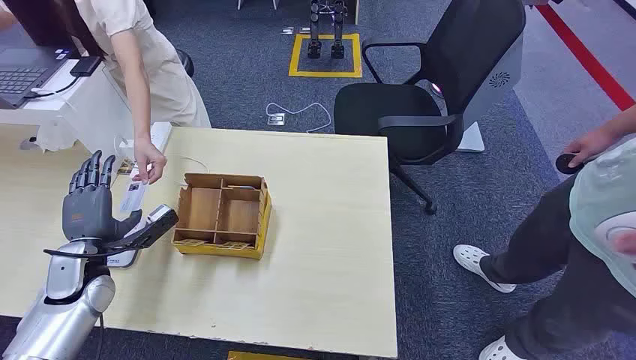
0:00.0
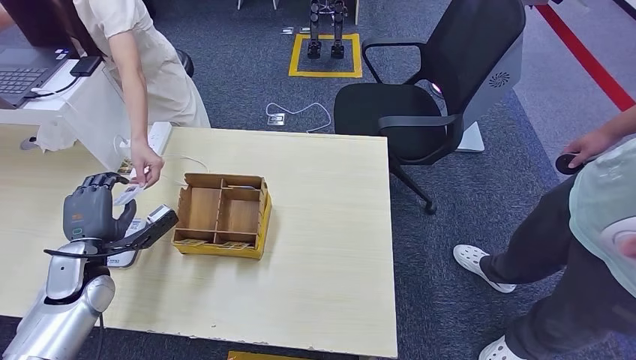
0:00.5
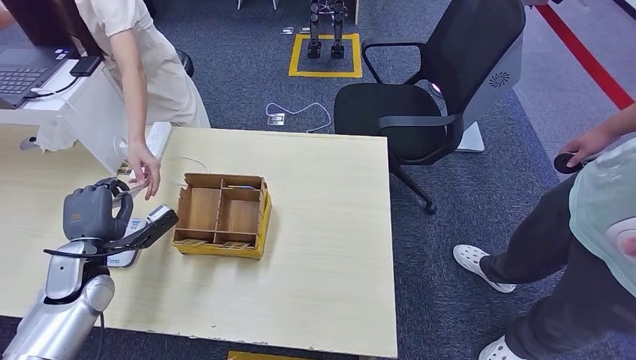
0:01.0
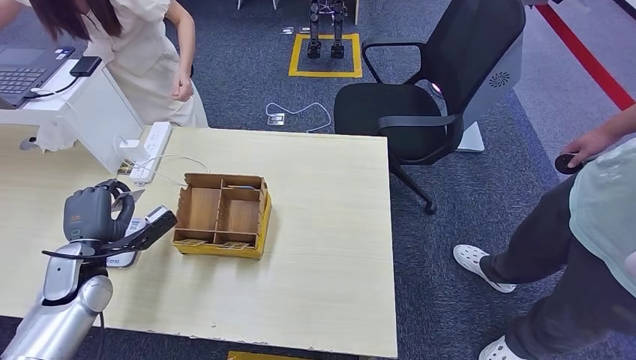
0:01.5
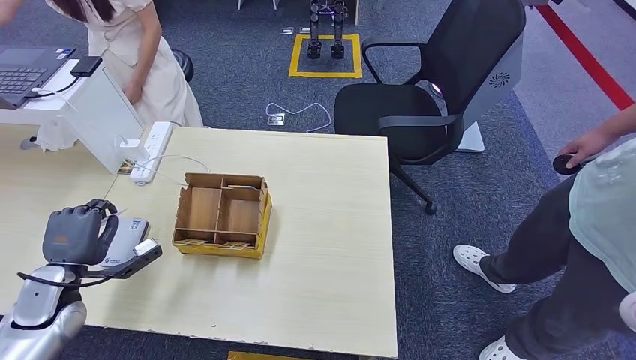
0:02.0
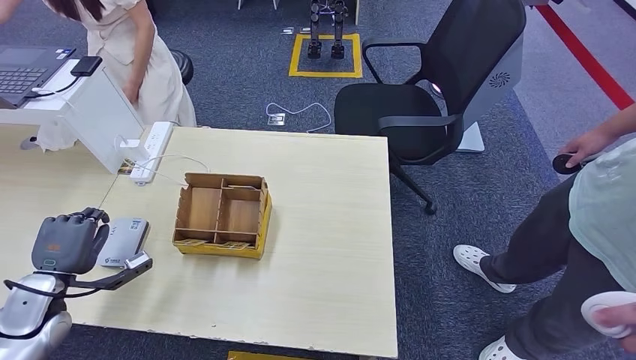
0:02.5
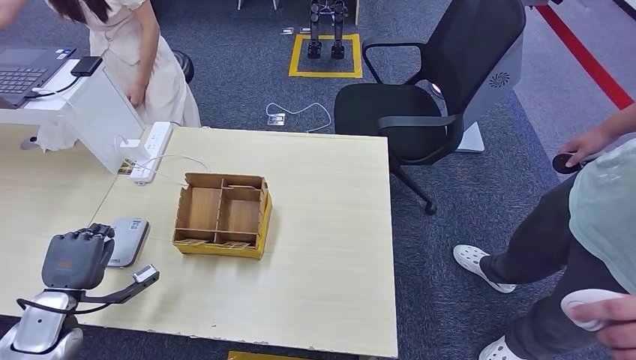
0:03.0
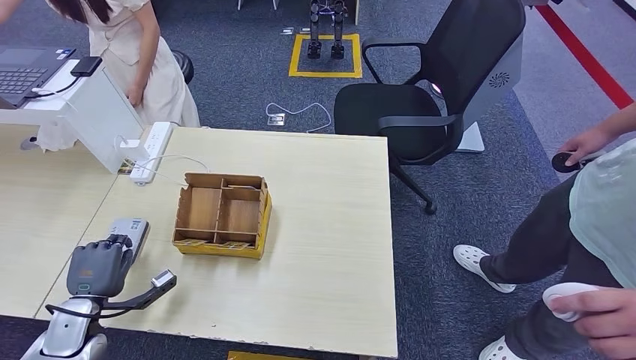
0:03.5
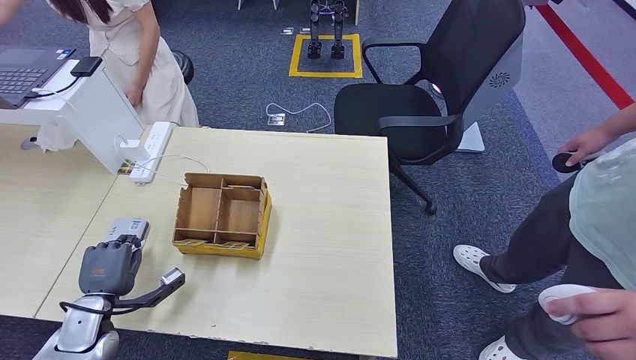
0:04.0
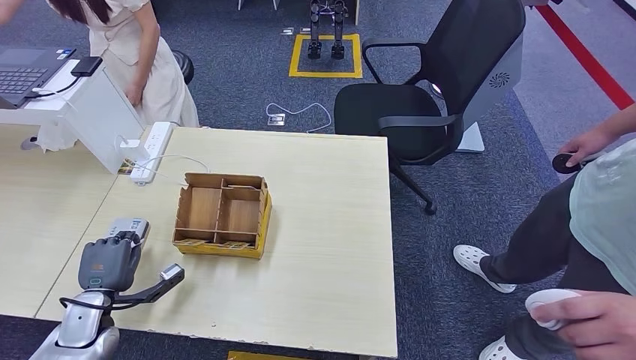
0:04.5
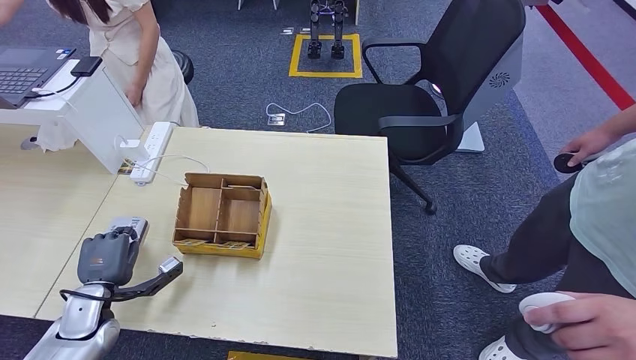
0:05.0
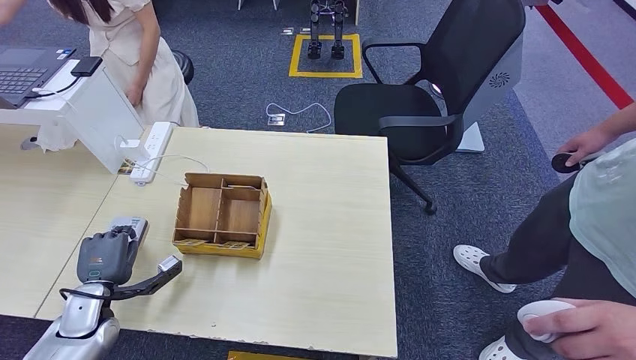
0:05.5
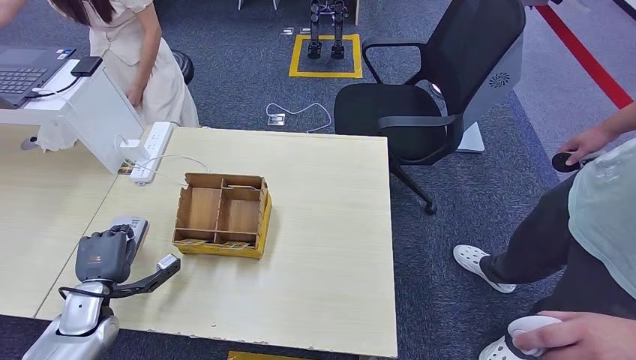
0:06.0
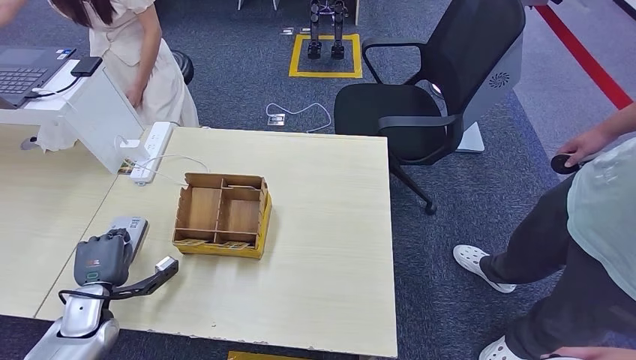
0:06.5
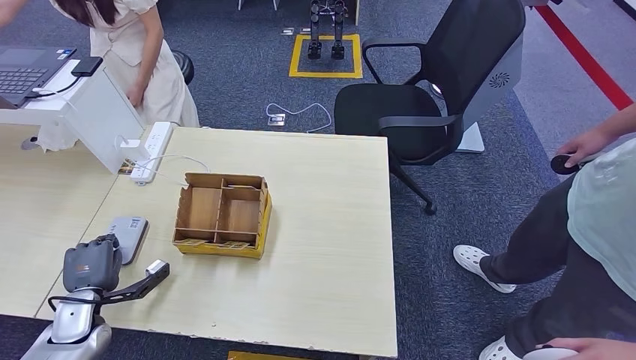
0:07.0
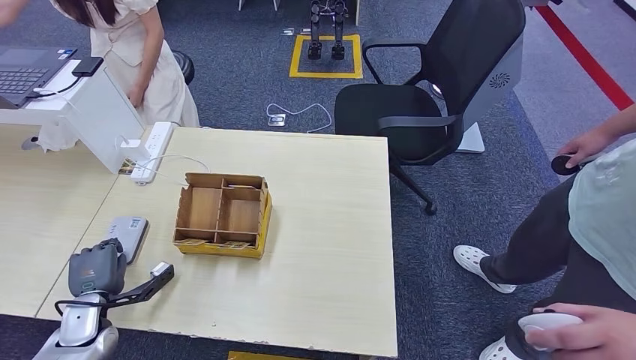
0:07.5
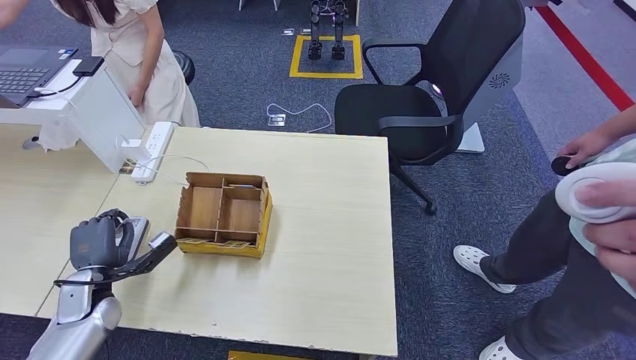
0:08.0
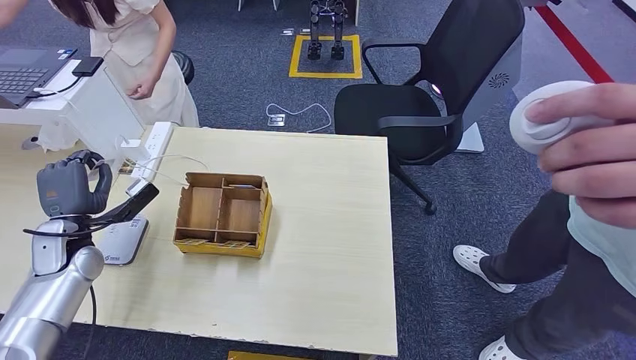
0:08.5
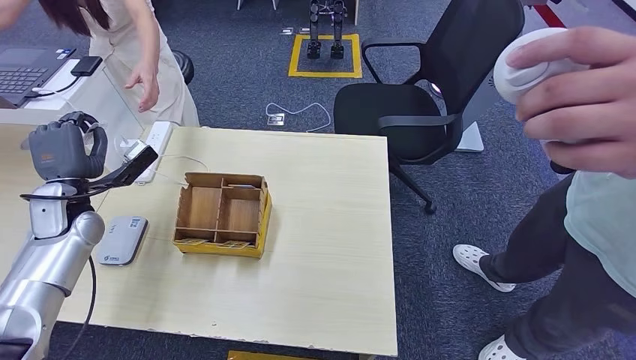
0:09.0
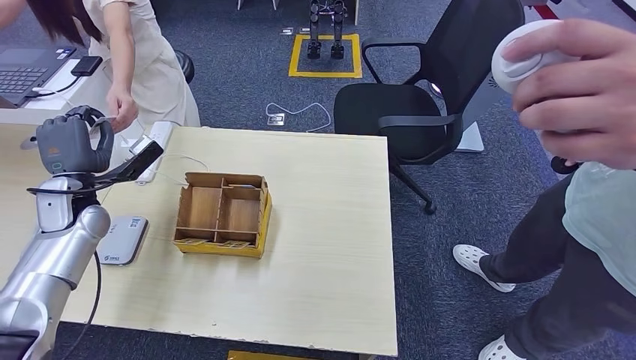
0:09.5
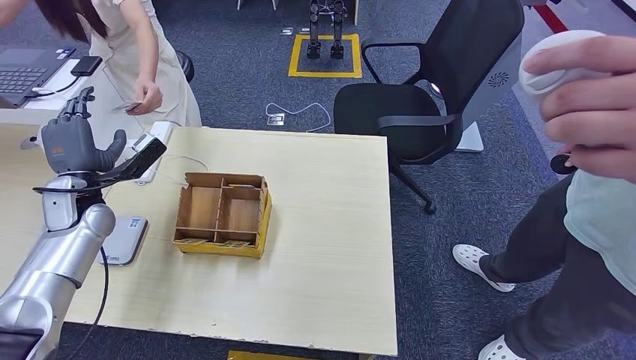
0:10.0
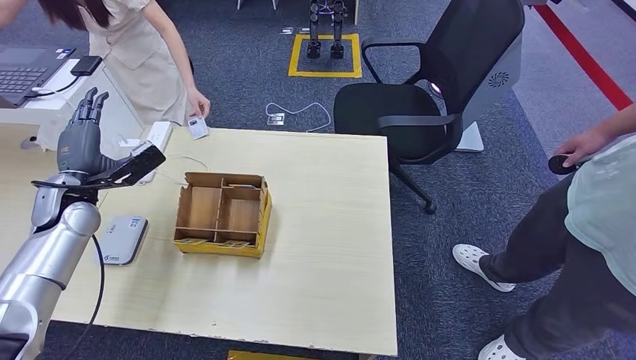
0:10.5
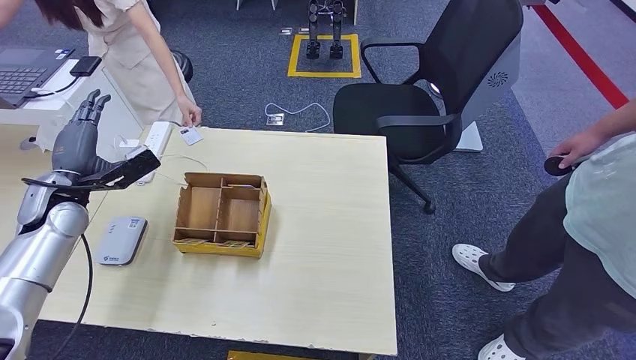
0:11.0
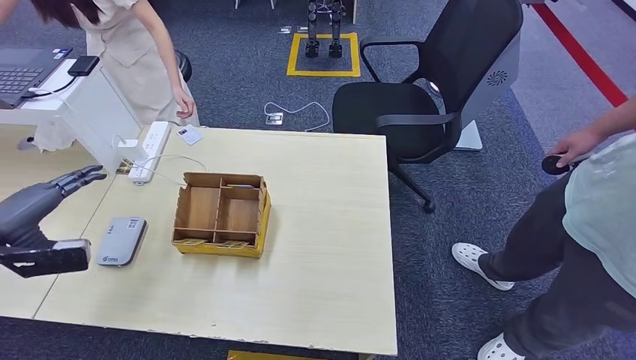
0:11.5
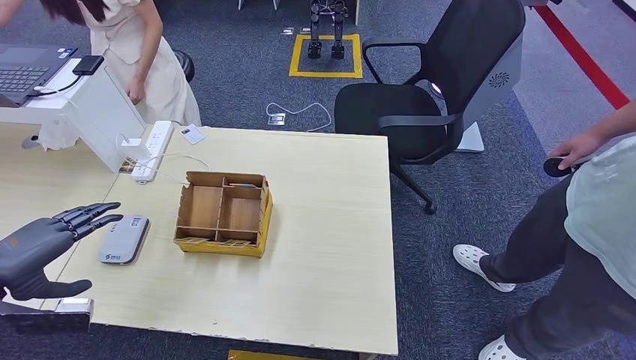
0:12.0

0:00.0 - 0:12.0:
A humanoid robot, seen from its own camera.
Step, 0:00.0 - 0:01.0: Take the ID card from the person's hand.
Step, 0:01.5 - 0:04.0: Place the ID card on the card reader.
Step, 0:04.5 - 0:10.0: Hand the ID card to the person.
0:02.0 - 0:04.0: The left hand goes approximately 10 cm downward.
0:04.0 - 0:08.0: The hands move only a little.
0:08.0 - 0:10.0: The left hand is displaced upward and forward by about 20 cm.
0:10.0 - 0:12.0: The left hand is displaced backward by approximately 20 cm.

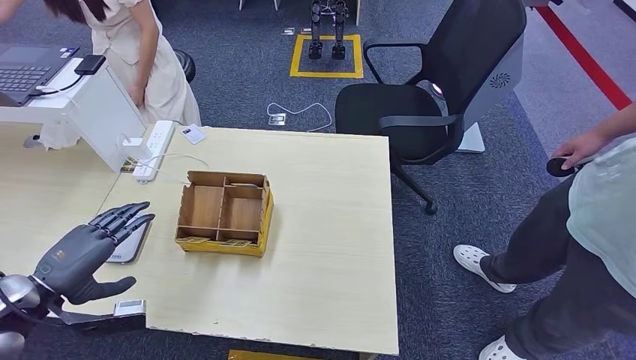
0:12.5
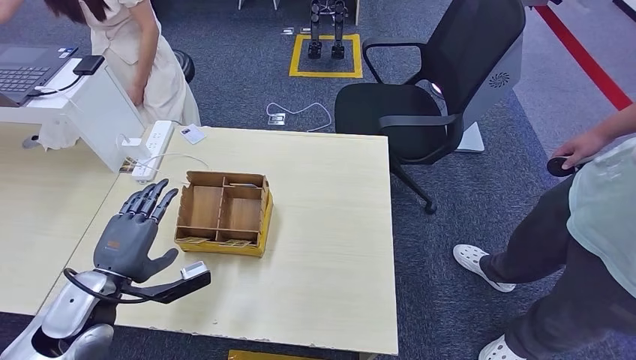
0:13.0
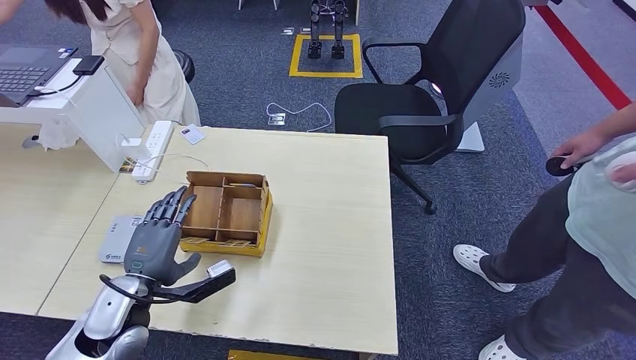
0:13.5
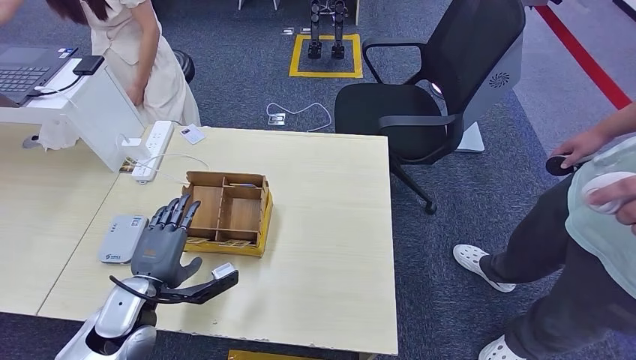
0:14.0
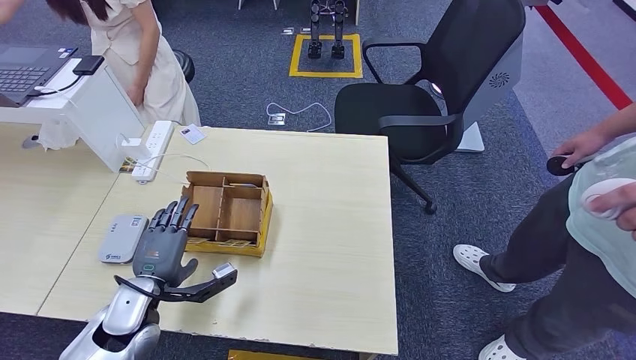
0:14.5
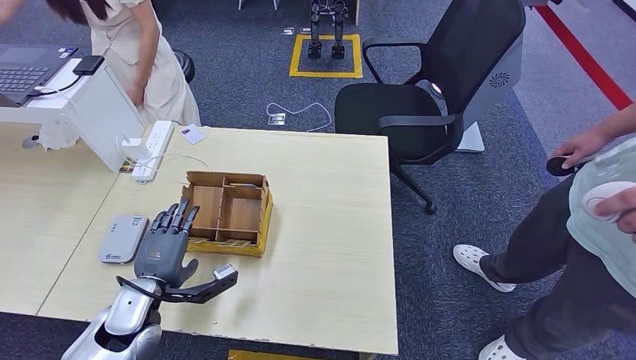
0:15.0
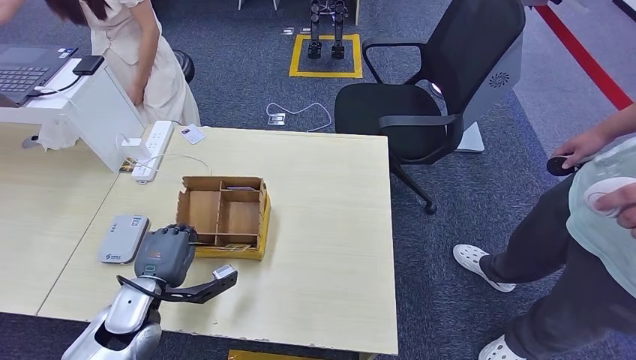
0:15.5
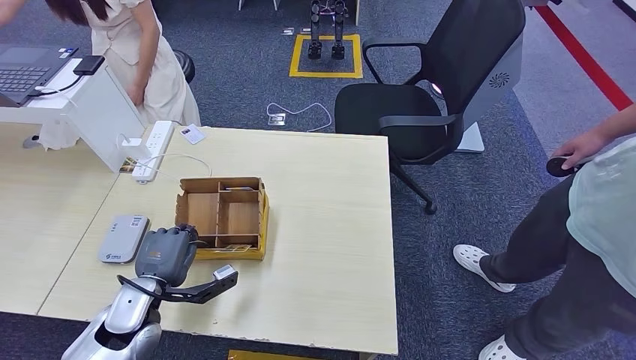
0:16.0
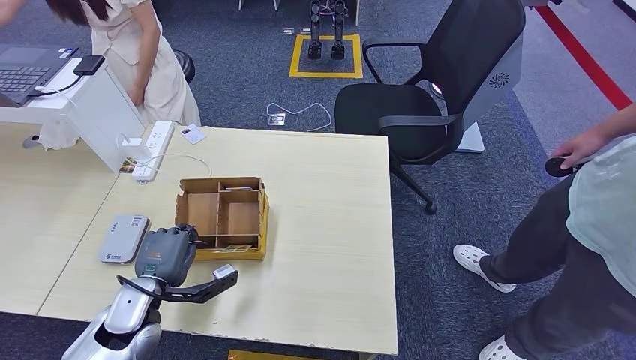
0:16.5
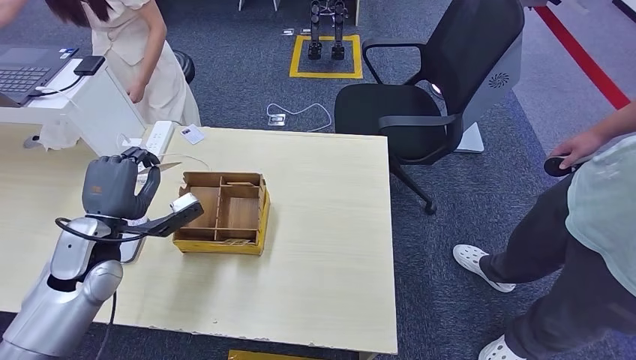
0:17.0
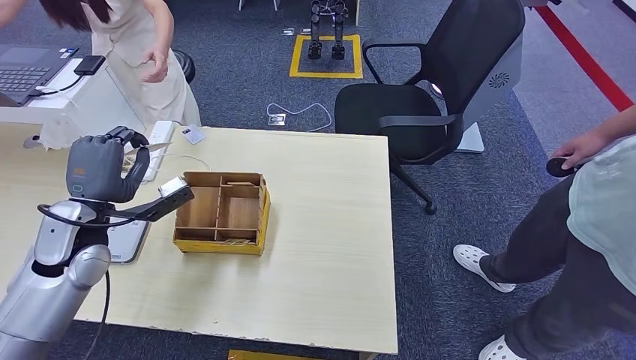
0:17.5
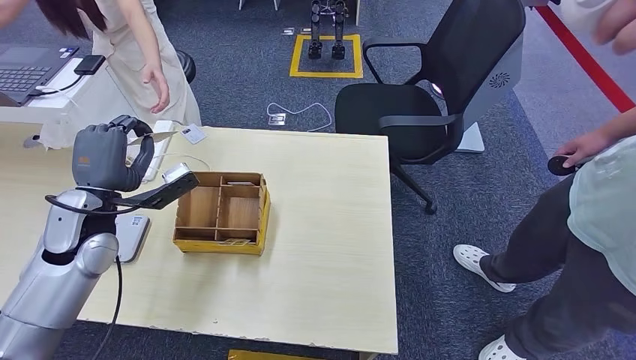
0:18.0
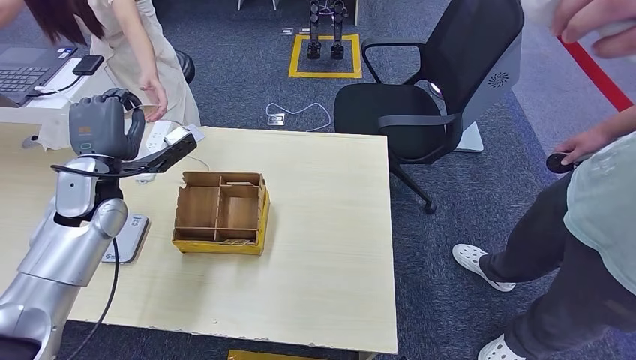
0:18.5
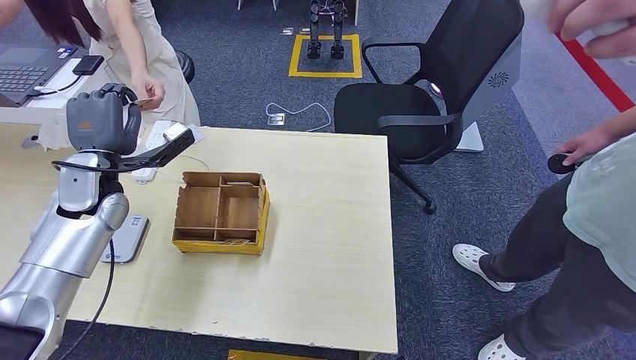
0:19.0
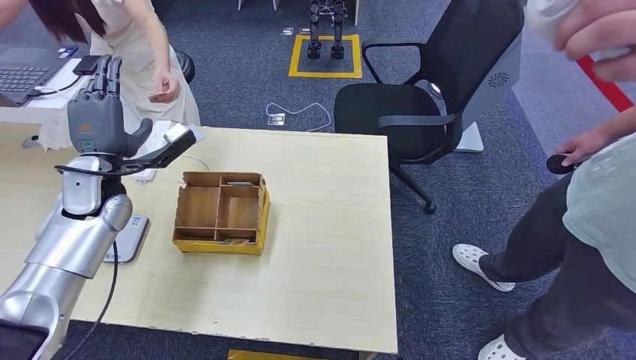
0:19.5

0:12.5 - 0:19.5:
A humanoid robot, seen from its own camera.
Step, 0:12.5 - 0:16.0: Pick up the room key from the key card box.
Step, 0:16.5 - 0:19.5: Hand the room key to the person.
0:12.5 - 0:14.5: The left hand moves to the right and downward, some 15 cm.
0:14.5 - 0:16.0: The two hands keep their place.
0:16.0 - 0:17.5: The left hand heads upward, forward and to the left, covering approximately 15 cm.
0:17.5 - 0:19.5: The left hand goes some 10 cm forward.
